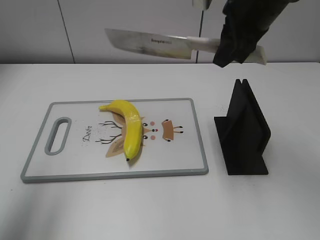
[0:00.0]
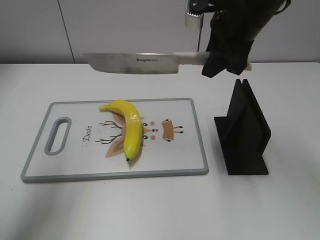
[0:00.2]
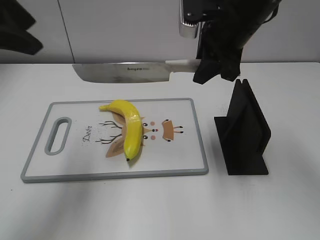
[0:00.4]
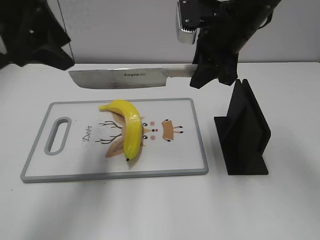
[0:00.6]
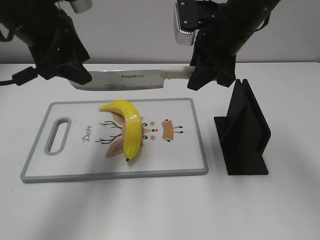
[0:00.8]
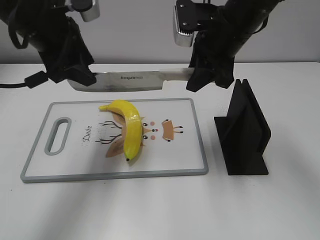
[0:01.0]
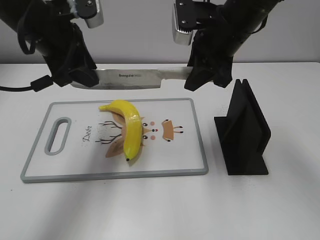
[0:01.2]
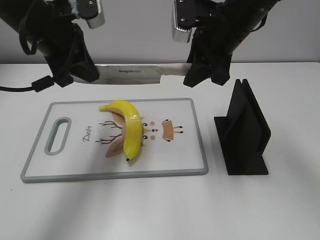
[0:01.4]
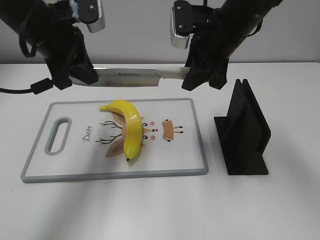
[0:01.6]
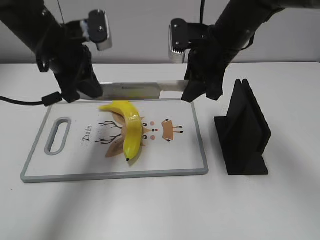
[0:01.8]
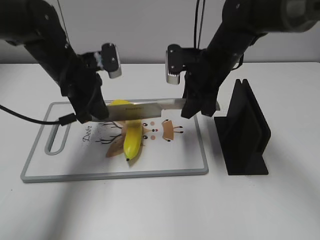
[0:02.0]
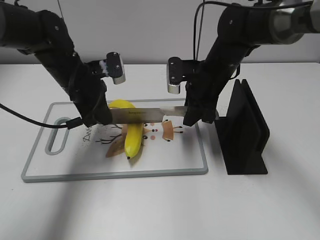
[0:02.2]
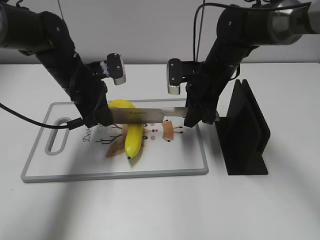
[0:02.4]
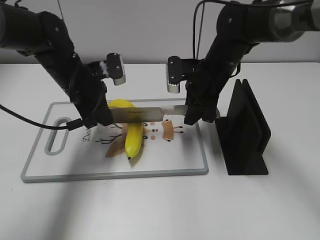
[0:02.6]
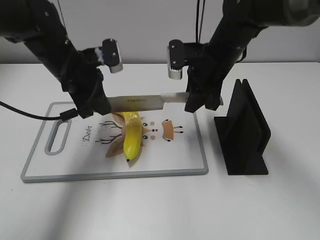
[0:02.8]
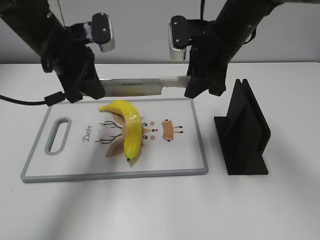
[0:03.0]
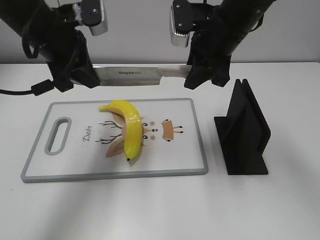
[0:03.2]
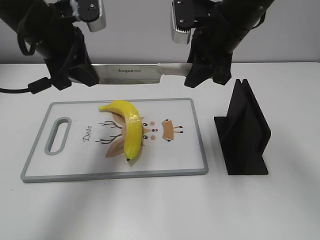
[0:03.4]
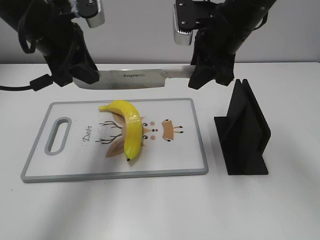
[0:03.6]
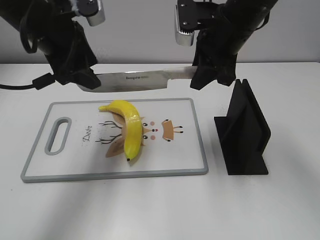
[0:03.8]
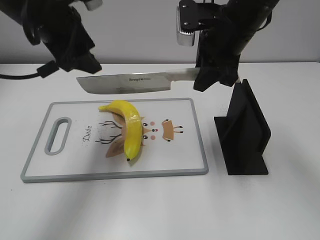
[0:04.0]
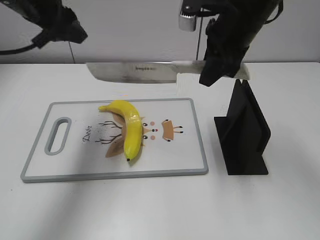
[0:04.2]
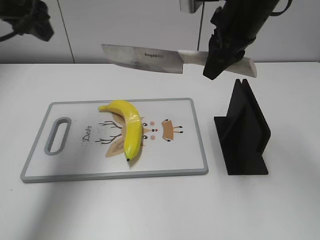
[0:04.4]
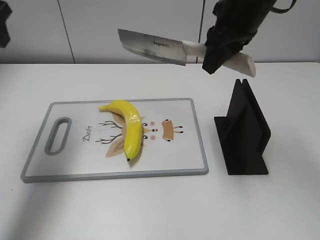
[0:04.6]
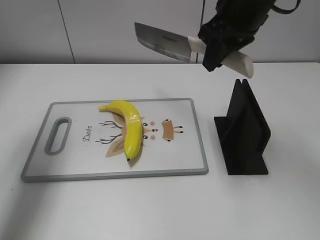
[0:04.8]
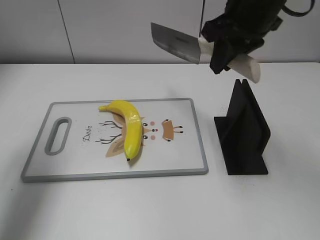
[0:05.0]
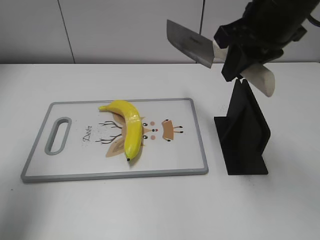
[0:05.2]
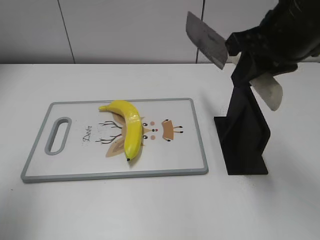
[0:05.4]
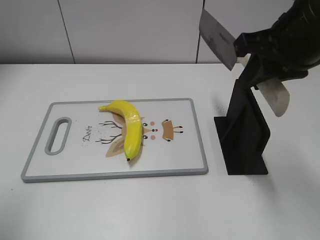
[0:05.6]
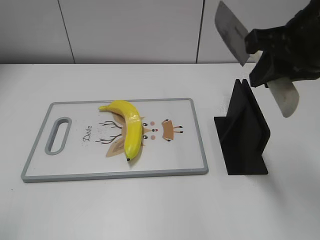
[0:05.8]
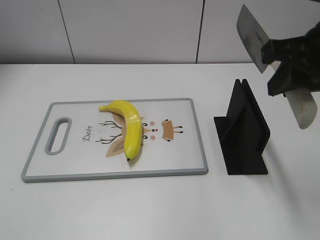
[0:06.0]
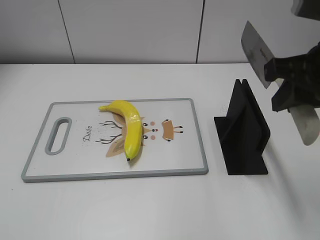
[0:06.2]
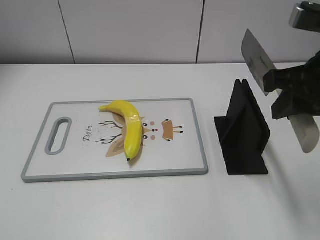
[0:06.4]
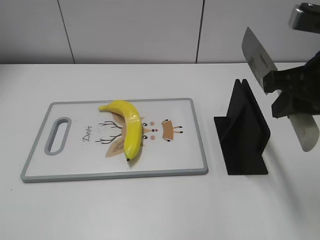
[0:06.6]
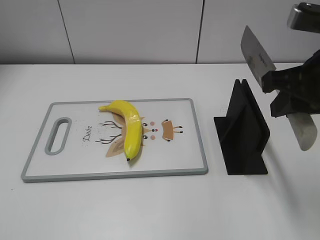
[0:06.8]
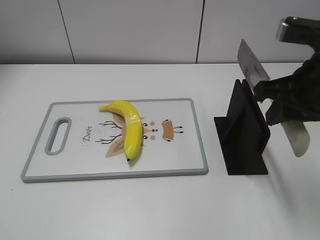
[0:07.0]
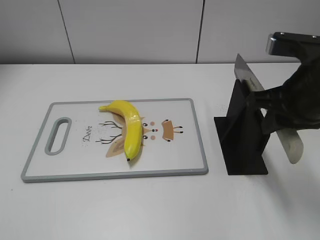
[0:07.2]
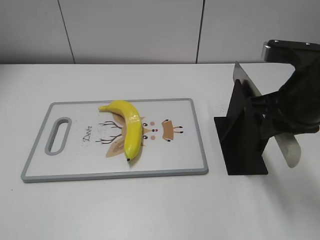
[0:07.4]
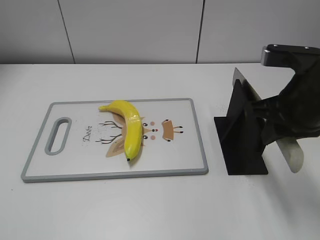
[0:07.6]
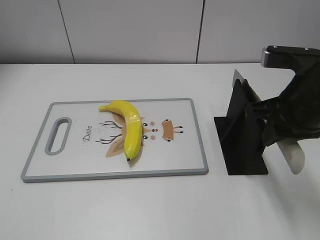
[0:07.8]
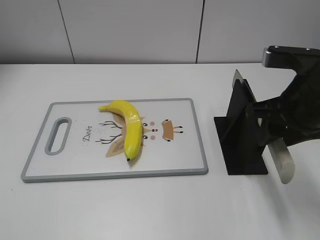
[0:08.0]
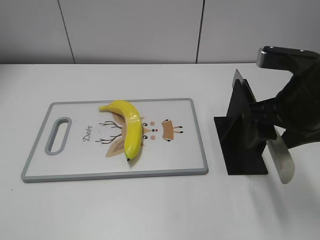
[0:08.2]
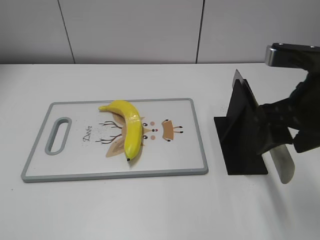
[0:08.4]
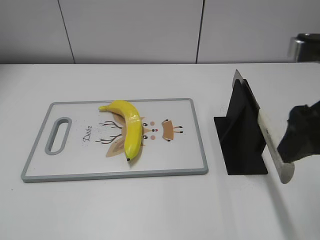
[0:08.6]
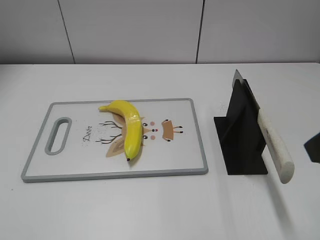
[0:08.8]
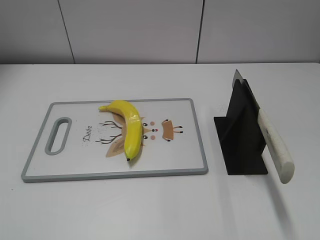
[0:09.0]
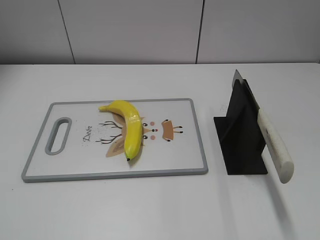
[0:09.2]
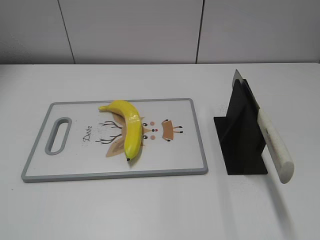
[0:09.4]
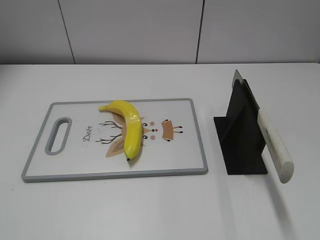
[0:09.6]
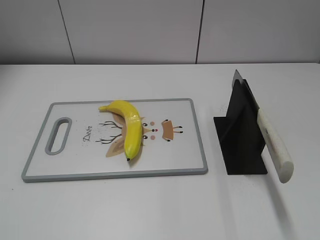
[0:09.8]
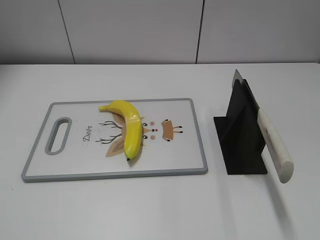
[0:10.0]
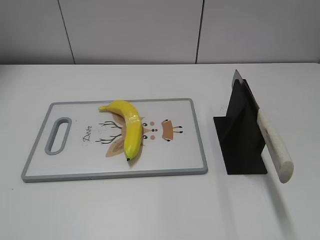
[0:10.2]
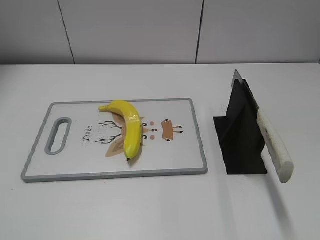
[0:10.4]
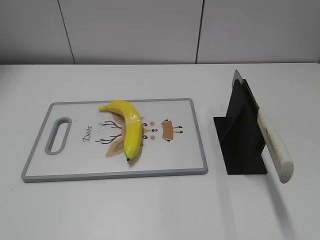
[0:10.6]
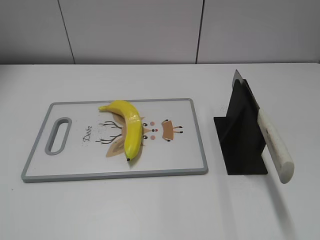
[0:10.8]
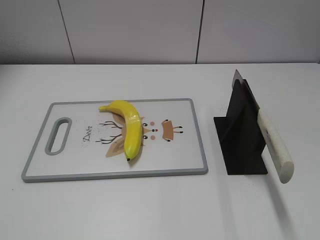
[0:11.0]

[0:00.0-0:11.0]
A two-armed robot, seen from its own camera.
Task of the whole recording: cut plastic banana.
Step, 0:00.0 to 0:03.2: Lift the knife with your right hand.
Step, 0:03.6 to 0:04.2: Cut the banana with your right hand.
Step, 0:04.6 to 0:05.4: Lift the knife with your right hand.
Step, 0:05.6 to 0:11.0: Place the knife on the storage rack with your right hand.
0:00.0 to 0:01.6: The left gripper goes approximately 20 cm forward, to the right and downward, and closes its fingers. The right gripper travels downward by some 5 cm.
0:01.6 to 0:03.2: The left gripper moves about 15 cm downward and comes back, while the right gripper moves some 10 cm downward and comes back.
0:03.2 to 0:04.8: The right gripper moves upward, about 5 cm. The left gripper shifts about 15 cm to the left and upward, and opens its fingers.
0:04.8 to 0:06.2: The left gripper travels backward by about 30 cm, while the right gripper travels backward and to the right by some 15 cm.
0:06.2 to 0:07.8: The right gripper is displaced downward by some 5 cm.
0:07.8 to 0:09.4: The right gripper moves backward and to the right, approximately 25 cm, and opens.

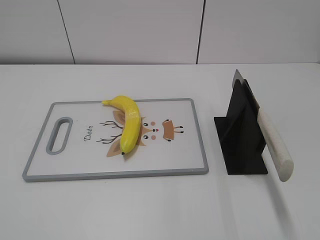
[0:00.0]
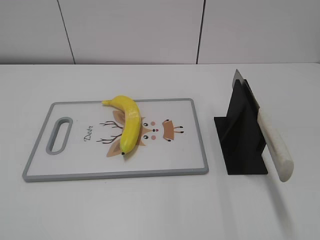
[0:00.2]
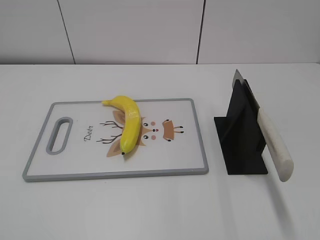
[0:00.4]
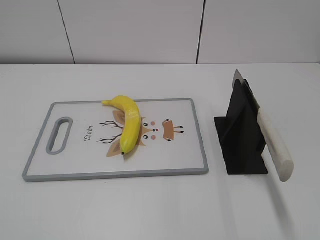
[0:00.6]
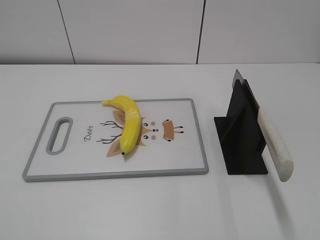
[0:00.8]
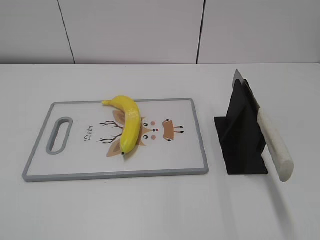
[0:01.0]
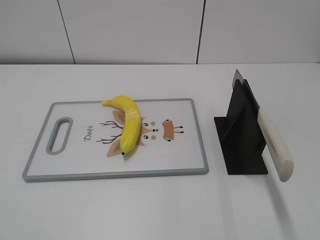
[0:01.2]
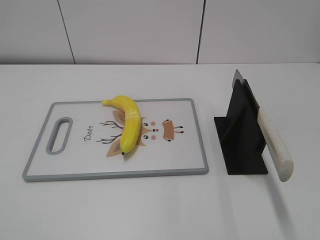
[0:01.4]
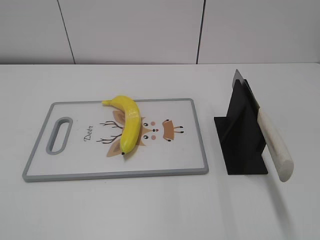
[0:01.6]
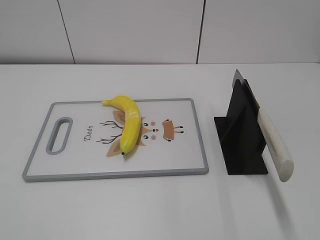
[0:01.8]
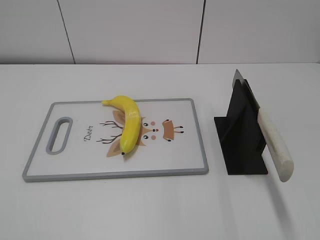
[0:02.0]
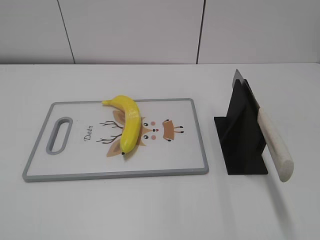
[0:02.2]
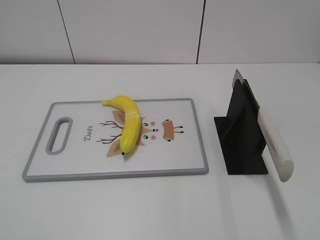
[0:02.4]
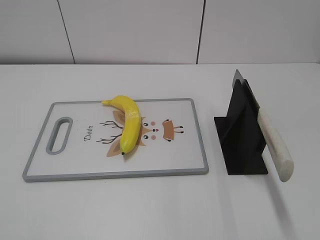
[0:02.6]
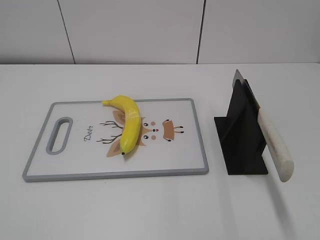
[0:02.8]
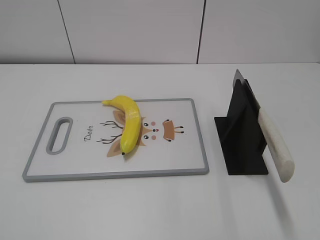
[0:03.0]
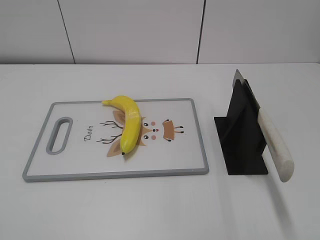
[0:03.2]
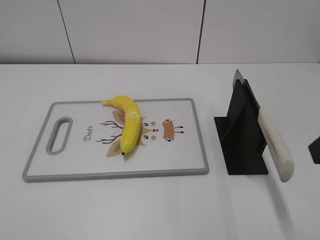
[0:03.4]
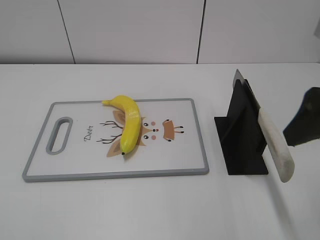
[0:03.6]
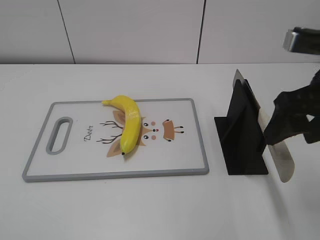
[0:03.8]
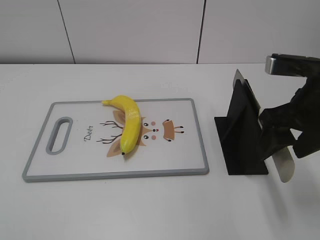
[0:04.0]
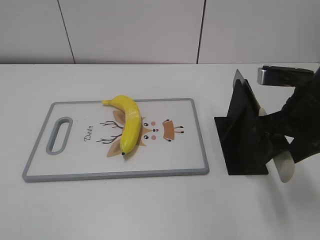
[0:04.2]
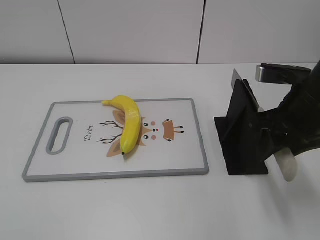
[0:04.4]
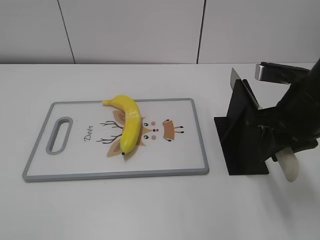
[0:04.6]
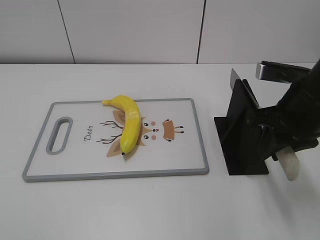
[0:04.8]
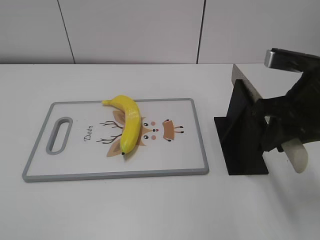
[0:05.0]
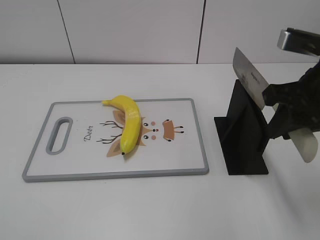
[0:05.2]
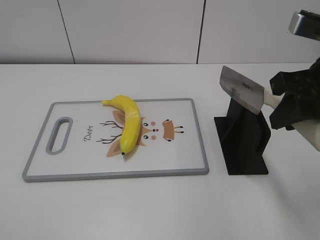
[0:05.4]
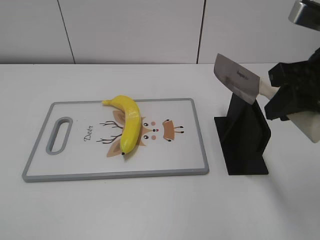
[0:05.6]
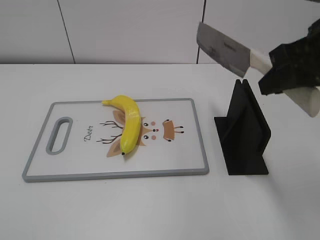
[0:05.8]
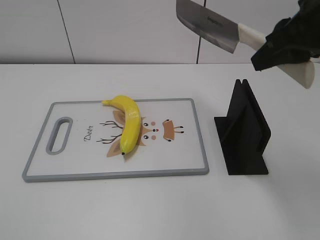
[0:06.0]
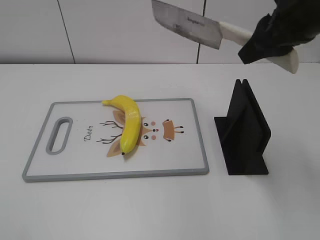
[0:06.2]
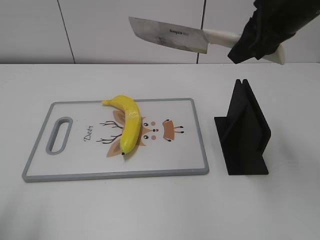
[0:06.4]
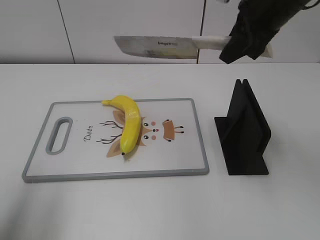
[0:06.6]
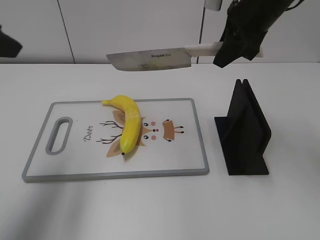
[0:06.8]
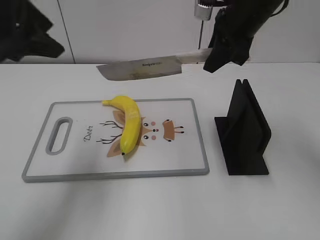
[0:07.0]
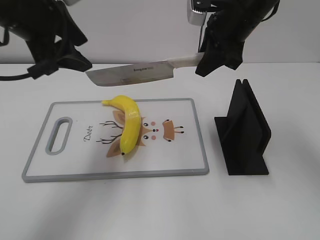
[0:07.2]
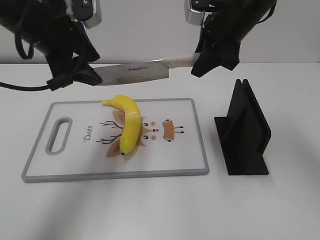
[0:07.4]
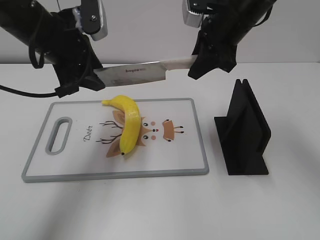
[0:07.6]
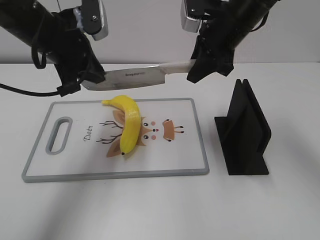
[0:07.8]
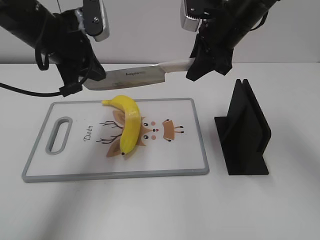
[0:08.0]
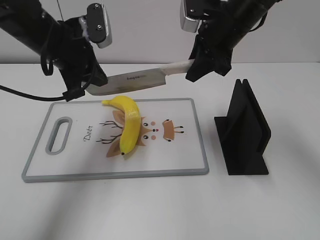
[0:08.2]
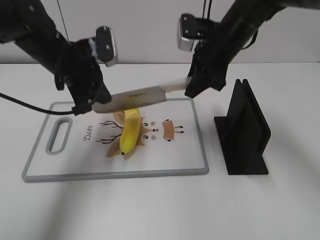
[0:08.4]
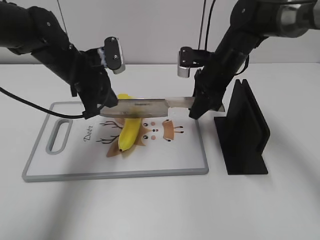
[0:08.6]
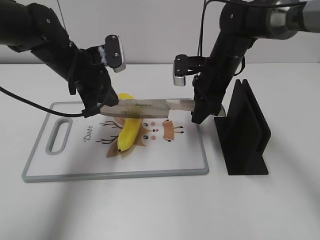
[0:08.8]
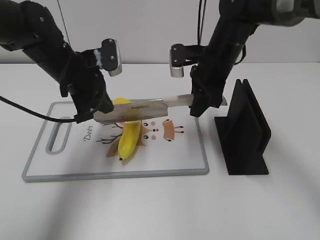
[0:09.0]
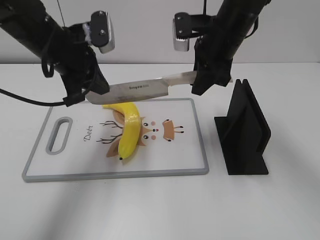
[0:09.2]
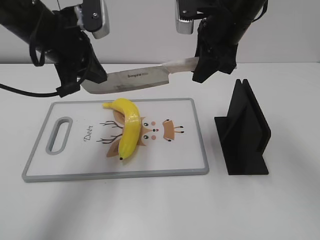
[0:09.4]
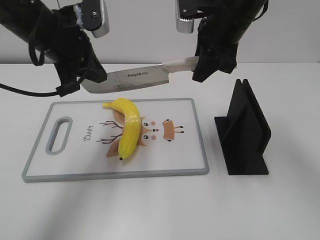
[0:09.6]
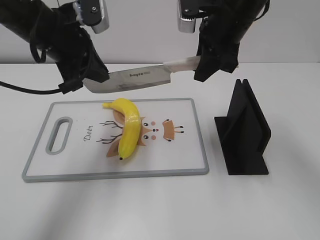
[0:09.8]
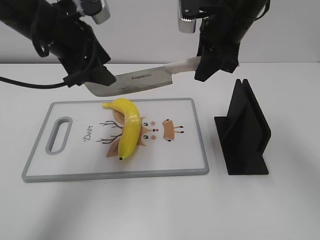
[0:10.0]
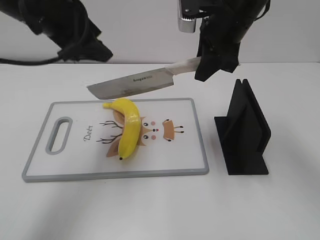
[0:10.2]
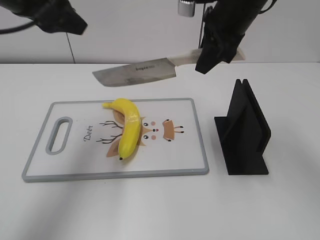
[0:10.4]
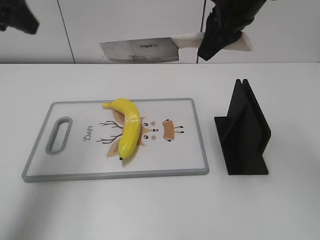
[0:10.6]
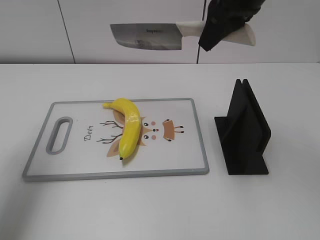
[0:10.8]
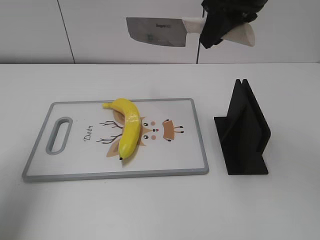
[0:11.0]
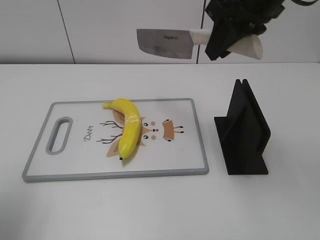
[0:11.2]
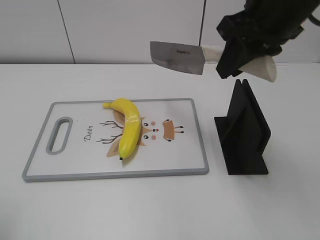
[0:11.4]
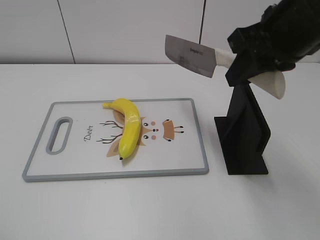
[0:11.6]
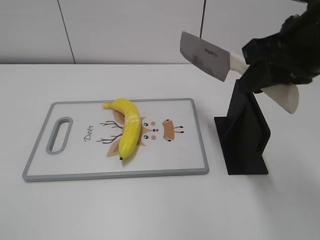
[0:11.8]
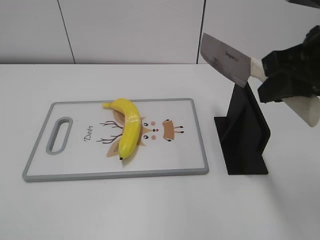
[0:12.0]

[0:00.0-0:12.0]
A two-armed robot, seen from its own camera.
Task of the whole recording: cut plastic banana.
Step, 0:00.0 to 0:05.8: Grab the knife handle with your right hand.
Step, 0:06.0 to 0:09.8: Lift the knife with your right hand.
Step, 0:10.0 to 0:10.8: Cut the banana with your right hand.
0:03.0 to 0:04.4: The right gripper heads forward and downward, covering about 20 cm, and closes its fingers.
0:04.4 to 0:06.0: The right gripper heads upward, covering some 10 cm, and closes its fingers.
0:06.0 to 0:07.6: The left gripper heads forward and to the right, covering some 35 cm; the right gripper heads forward, to the left and downward, covering some 15 cm.
0:07.6 to 0:09.0: Both grippers travel together downward, some 5 cm. The left gripper closes.
0:09.0 to 0:10.4: The two grippers go some 15 cm upward. The left gripper opens.
0:10.4 to 0:12.0: The right gripper moves backward and to the right, some 20 cm; the left gripper goes some 35 cm backward.
